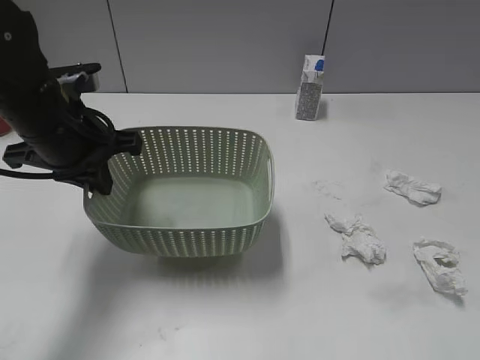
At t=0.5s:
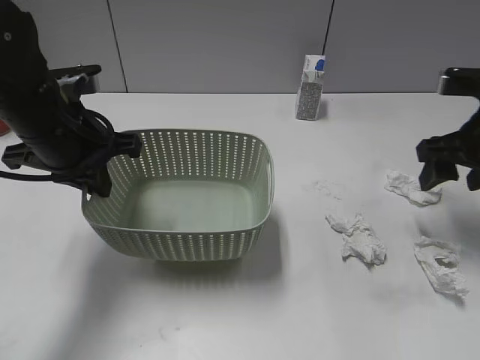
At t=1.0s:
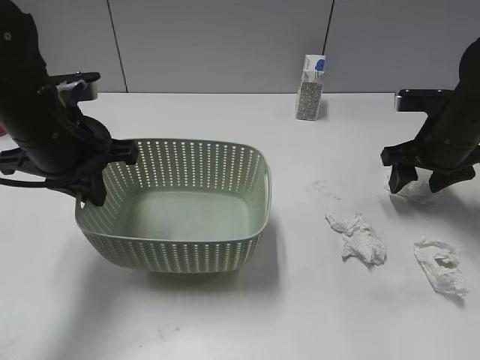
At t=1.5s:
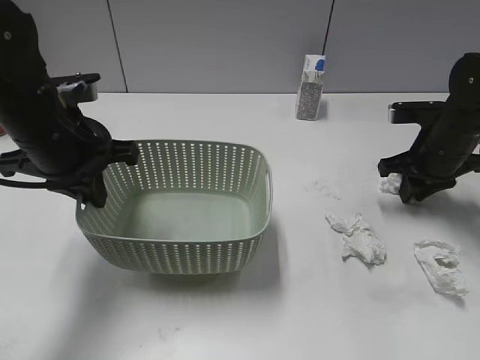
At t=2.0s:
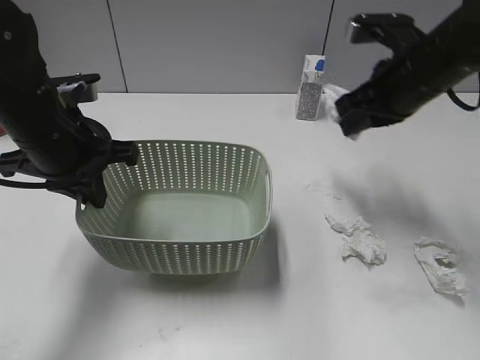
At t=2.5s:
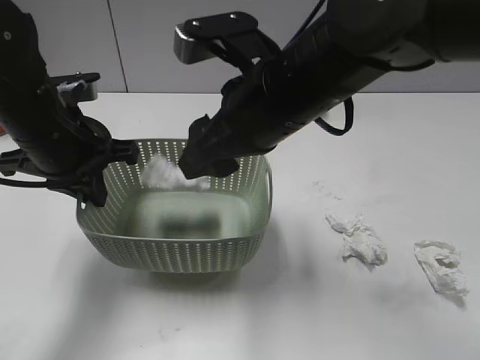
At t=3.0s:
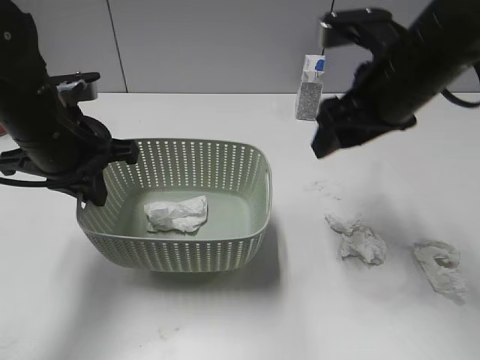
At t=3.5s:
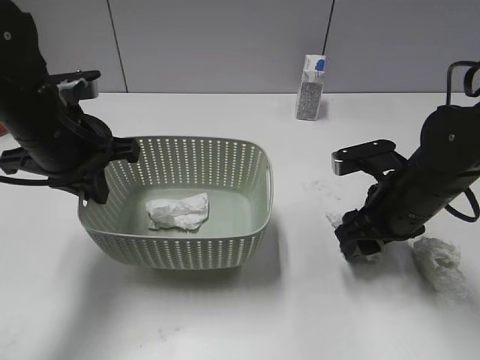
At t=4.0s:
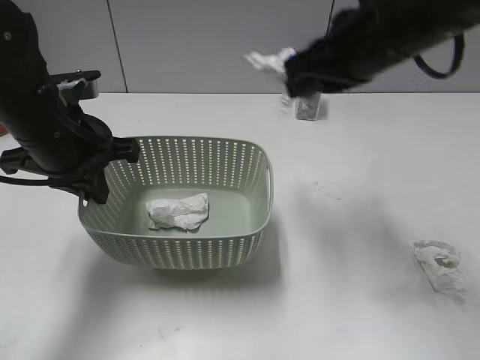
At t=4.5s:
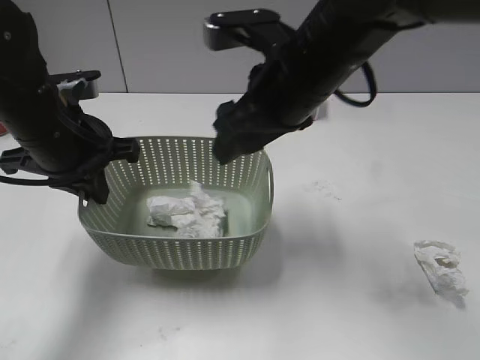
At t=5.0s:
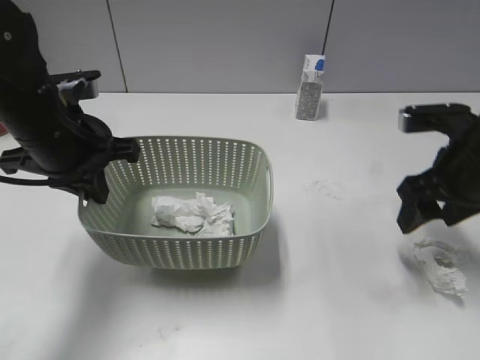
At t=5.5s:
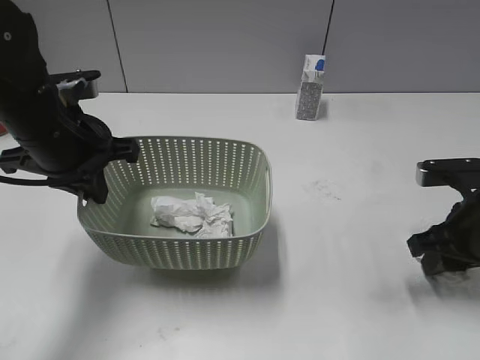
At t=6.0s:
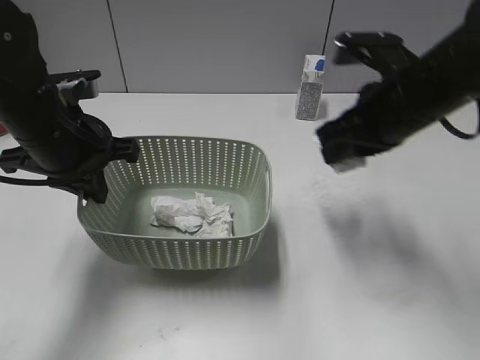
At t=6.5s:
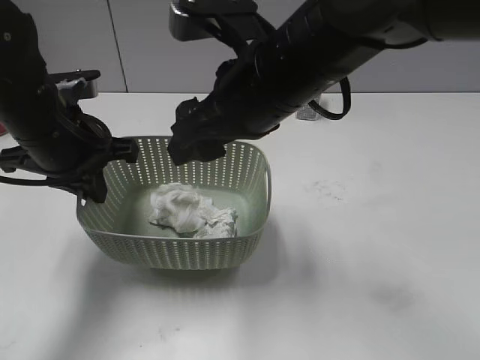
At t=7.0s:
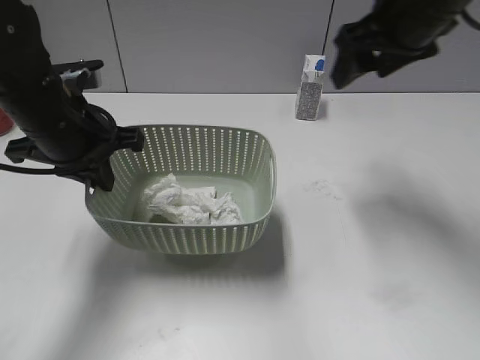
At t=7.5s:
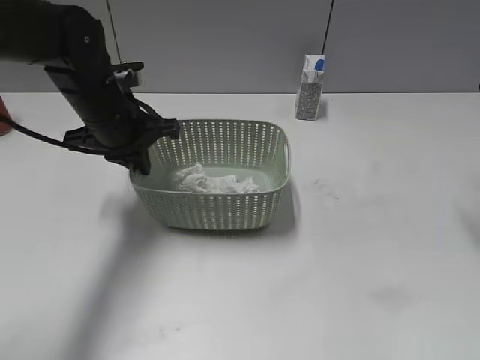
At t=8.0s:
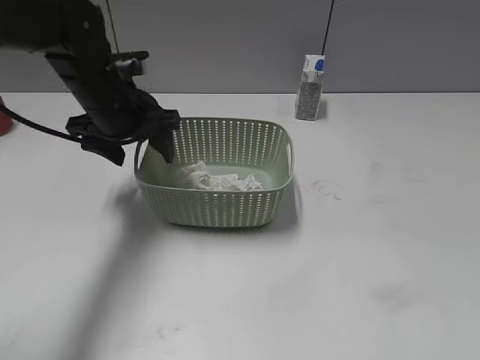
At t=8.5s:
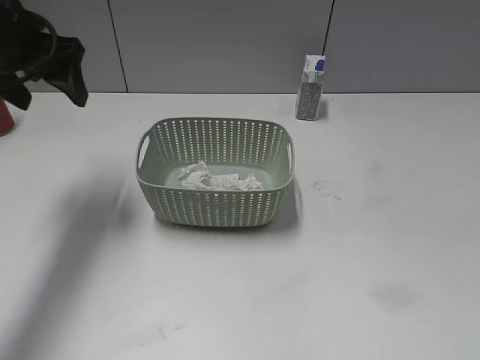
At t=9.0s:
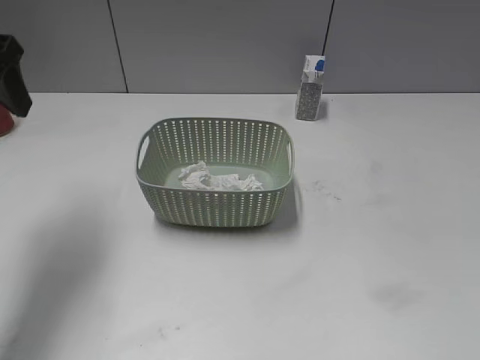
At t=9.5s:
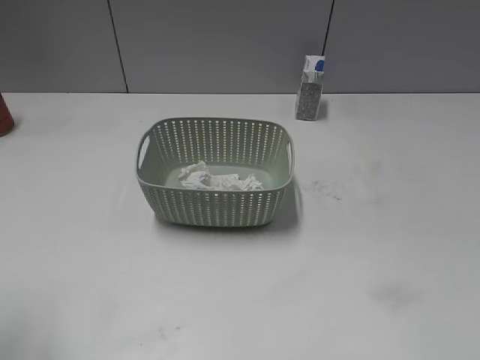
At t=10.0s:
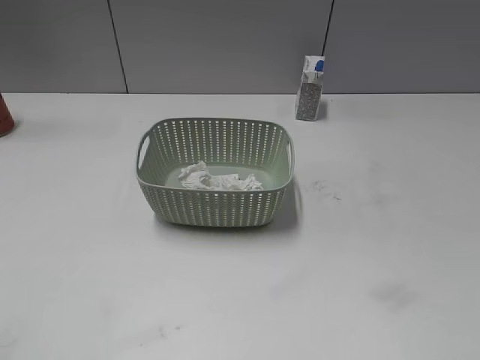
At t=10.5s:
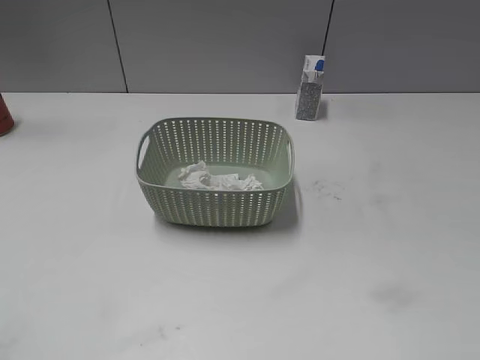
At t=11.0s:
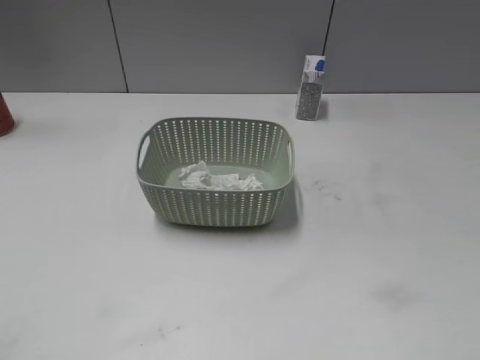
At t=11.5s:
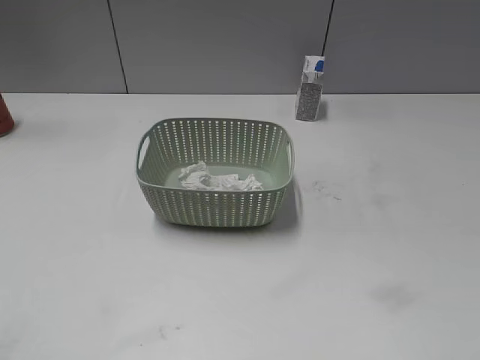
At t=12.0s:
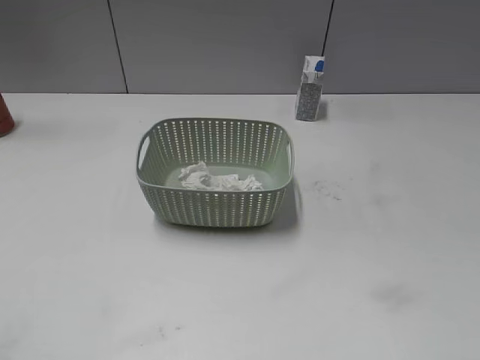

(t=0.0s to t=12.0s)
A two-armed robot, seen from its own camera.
Step, t=0.0s - t=1.5s: Grasp the waste paper with right gripper.
Step, t=2.0s - t=2.5s: Place the waste paper in the basket with right gripper.
Step, t=3.0s - t=3.5s: Grasp the waste paper with right gripper.
Step, t=4.0s - t=4.5s: Place the waste paper in the basket with right gripper.
Step, t=5.0s - t=5.5s: Grasp the waste paper with right gripper.
Step, t=6.0s - t=6.5s: Place the waste paper in the basket with right gripper.
Step, t=7.0s - t=7.5s: Place the basket on the table with left gripper.
t=0.0s - t=2.0s: The right gripper is displaced forward and to the left by approximately 30 cm, and closes its fingers.
t=2.0s - t=4.0s: The right gripper travels to the left by about 5 cm, reaches some 10 cm downward, then returns, and opens, then closes again.
t=4.0s - t=6.0s: The right gripper swings left and right, roughly 20 cm each way, with 2 reversals, and opens, then closes once more.
t=6.0s - t=8.0s: The left gripper is displaced forward by roughly 10 cm, and opens its fingers; the right gripper travels to the right, backward and upward by about 20 cm, and opens up.
t=8.0s - t=10.0s: The left gripper travels backward and to the left by about 40 cm; the right gripper heads backward, covering approximately 20 cm.
